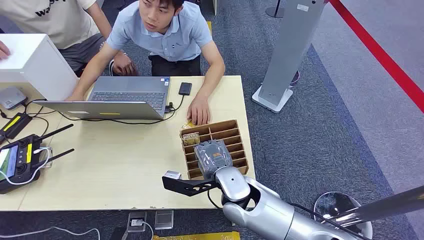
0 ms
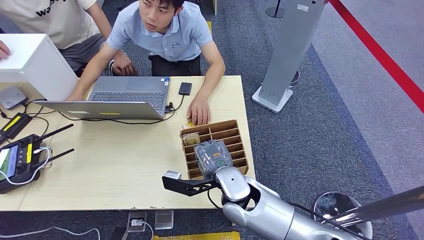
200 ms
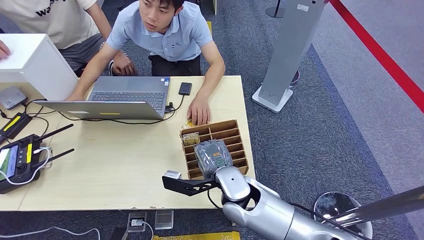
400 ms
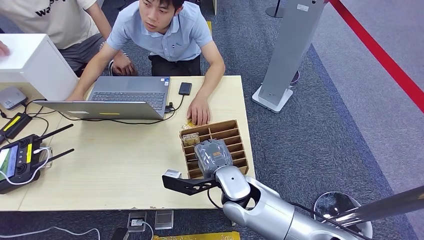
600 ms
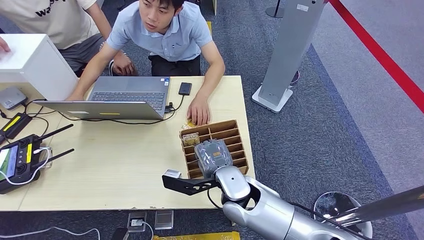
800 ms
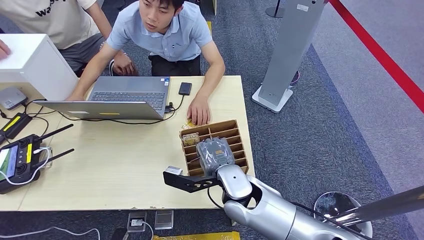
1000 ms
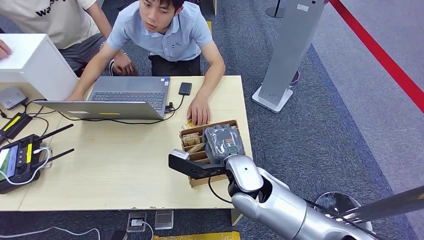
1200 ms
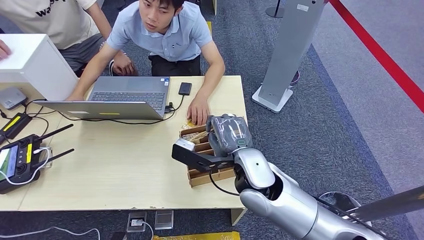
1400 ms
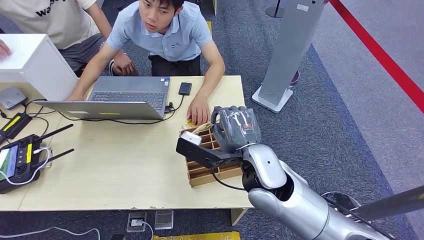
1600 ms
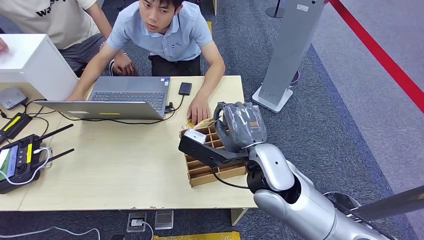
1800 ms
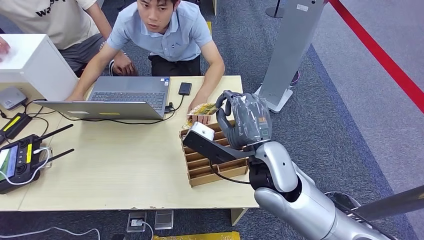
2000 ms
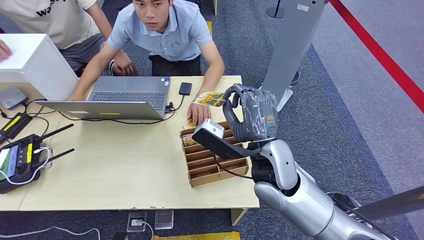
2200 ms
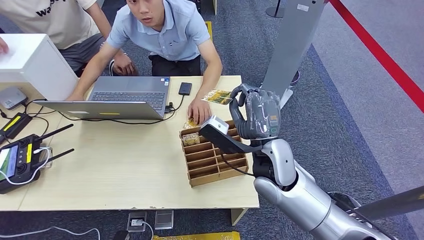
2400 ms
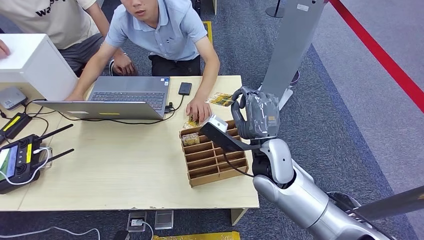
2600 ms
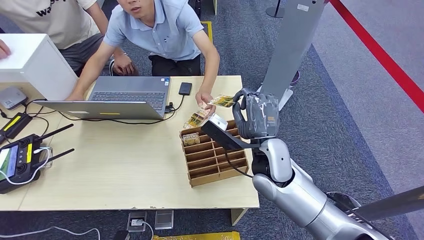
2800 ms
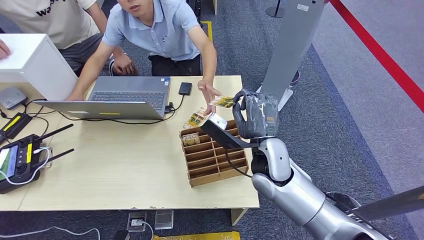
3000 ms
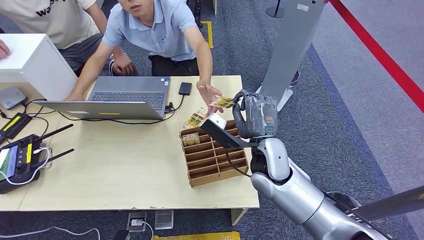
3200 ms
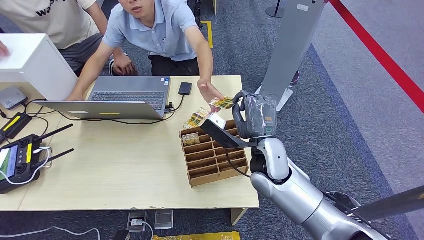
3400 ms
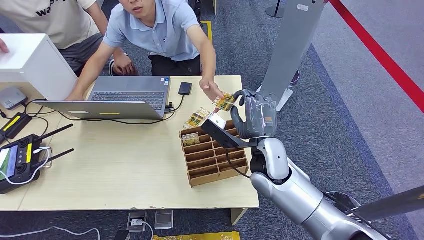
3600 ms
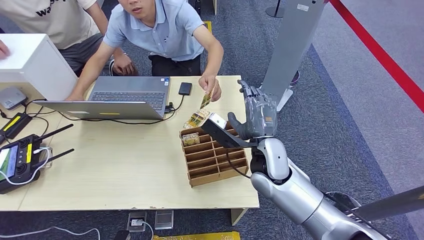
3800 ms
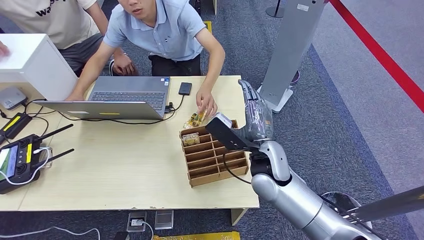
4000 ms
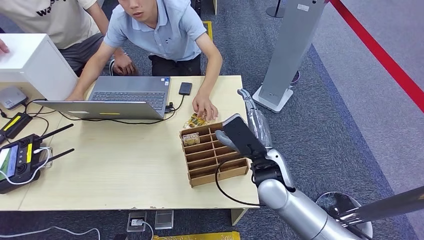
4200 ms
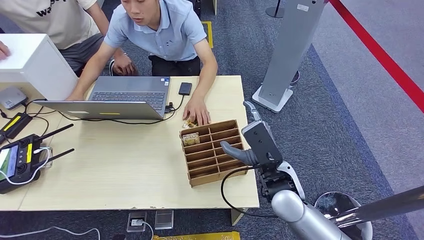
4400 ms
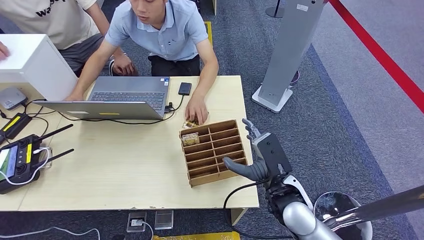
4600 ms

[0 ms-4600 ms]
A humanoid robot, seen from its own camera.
Step, 0 ms to 1800 ms: Pick up the key card from the card box.
Step, 2200 ms to 4600 ms: Hand the key card to the target.
1600 ms to 3000 ms: The right hand moves some 5 cm.
3000 ms to 4600 ms: The right hand is displaced backward by about 10 cm.

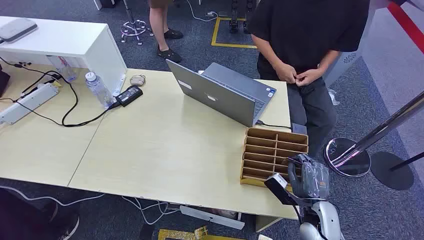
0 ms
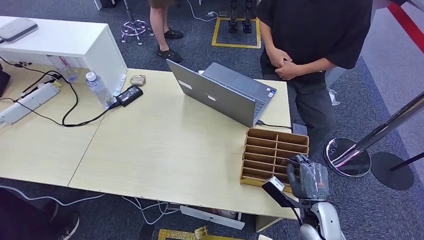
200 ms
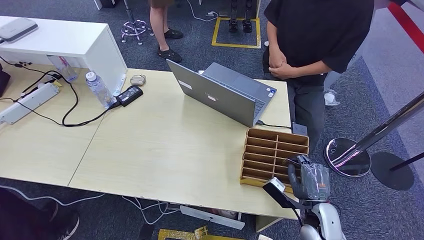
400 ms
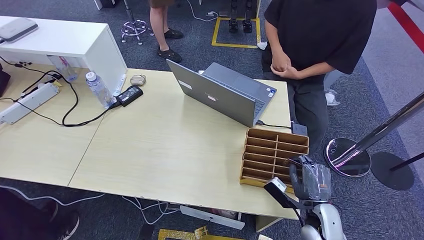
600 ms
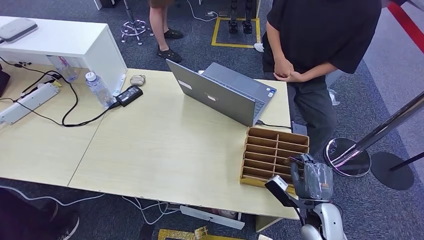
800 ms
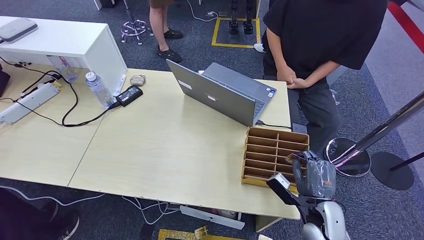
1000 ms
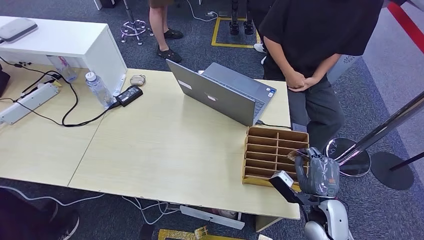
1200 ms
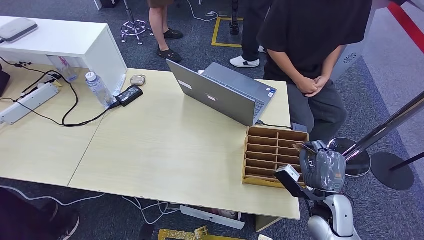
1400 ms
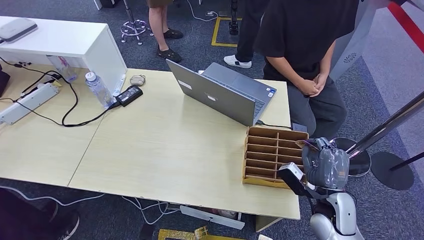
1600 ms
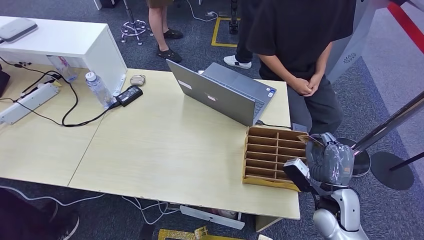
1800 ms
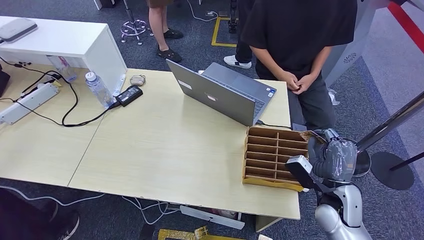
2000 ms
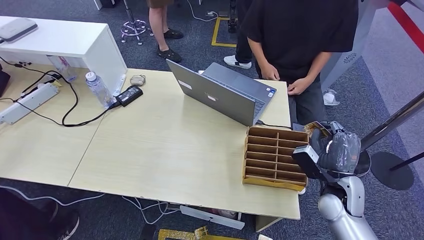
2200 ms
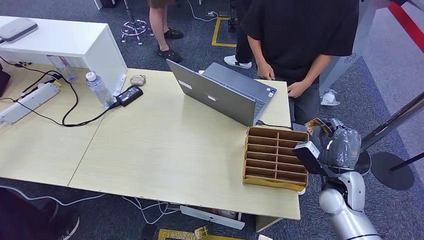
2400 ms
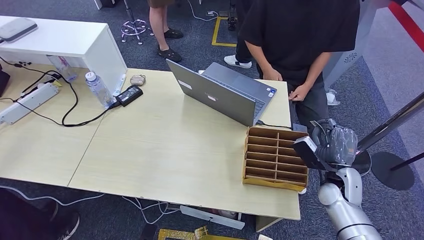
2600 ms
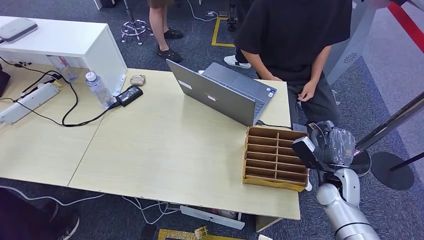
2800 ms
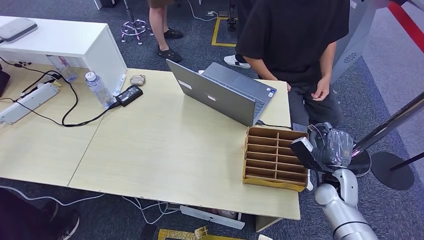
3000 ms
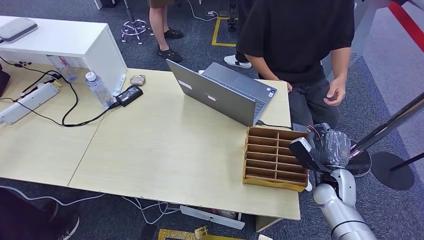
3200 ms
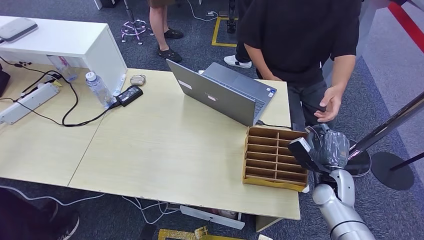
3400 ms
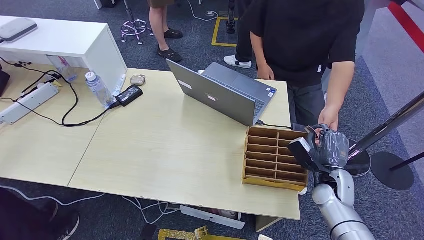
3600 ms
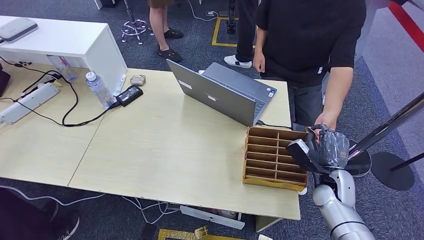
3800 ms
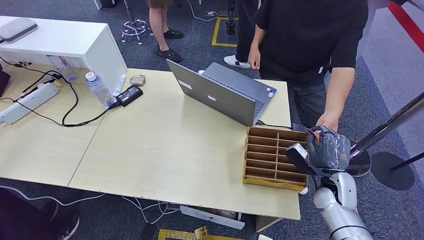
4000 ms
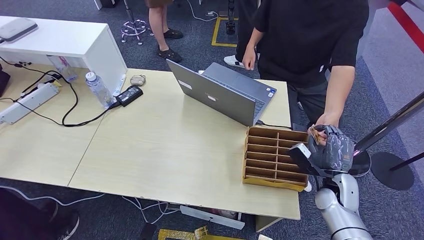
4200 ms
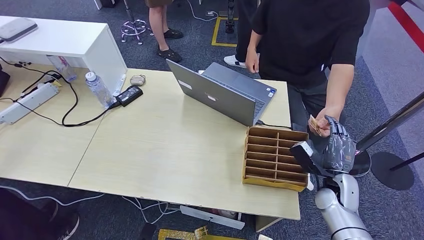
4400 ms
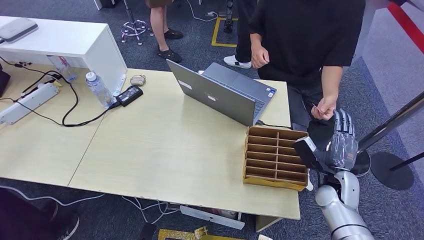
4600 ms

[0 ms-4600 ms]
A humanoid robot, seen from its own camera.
Step, 0 ms to 3200 ms: Pick up the key card from the card box.
Step, 3400 ms to 4600 ms: Hand the key card to the target.
1600 ms to 3000 ms: The right hand travels forward by roughly 5 cm.
3000 ms to 4600 ms: The hands move only a little.

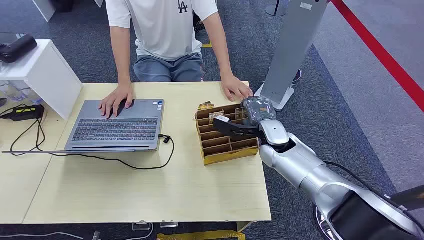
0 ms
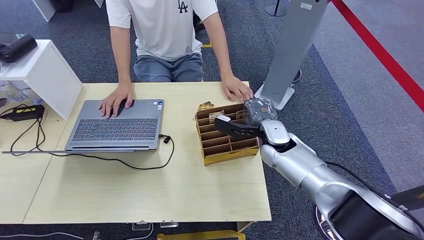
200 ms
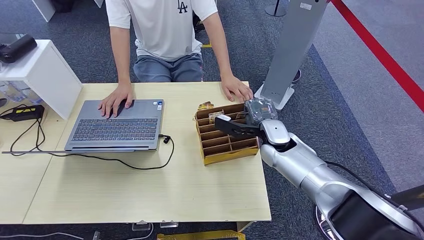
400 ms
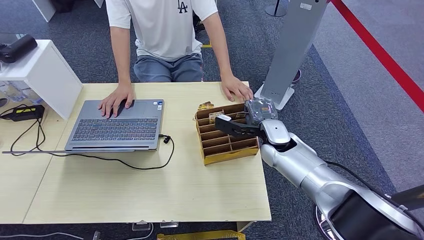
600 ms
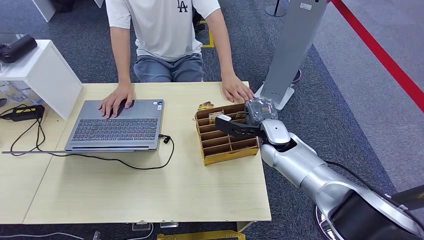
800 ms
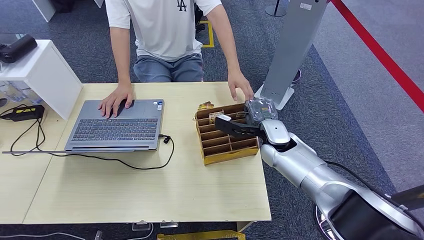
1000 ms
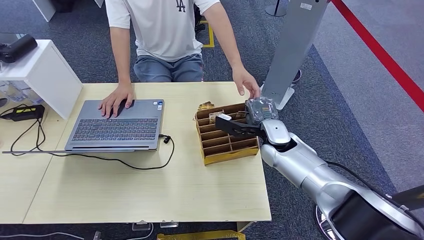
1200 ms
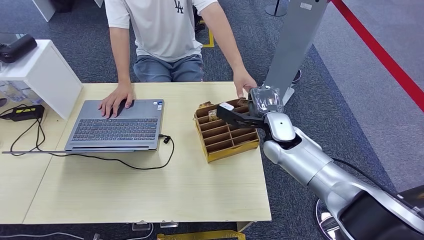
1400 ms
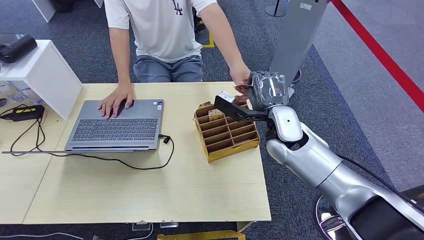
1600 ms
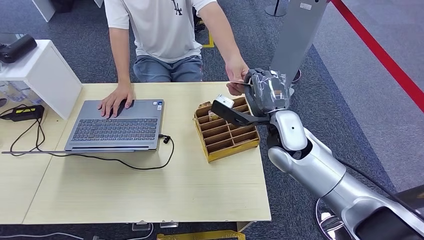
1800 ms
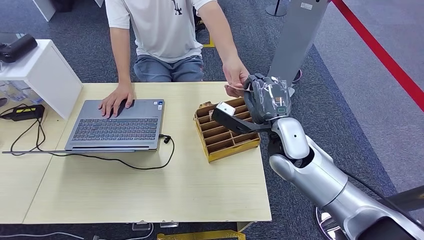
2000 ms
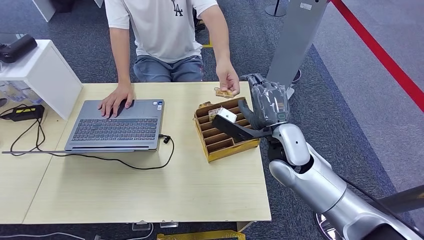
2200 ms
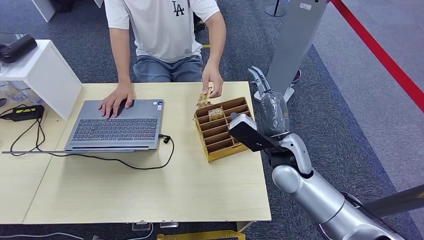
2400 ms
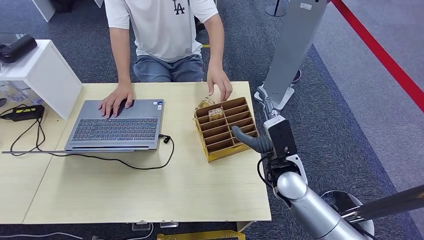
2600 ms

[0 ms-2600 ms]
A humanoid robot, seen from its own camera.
Step, 0 ms to 1200 ms: Pick up the key card from the card box.
Step, 1400 ms to 2600 ms: Hand the key card to the target.
1200 ms to 2600 ms: The right hand goes approximately 10 cm backward.
